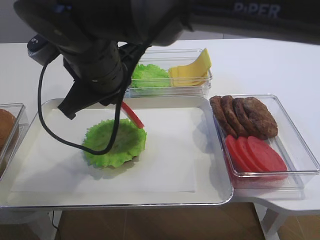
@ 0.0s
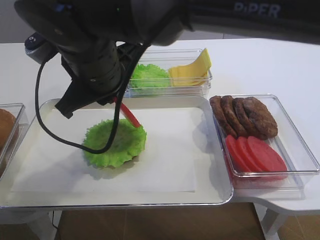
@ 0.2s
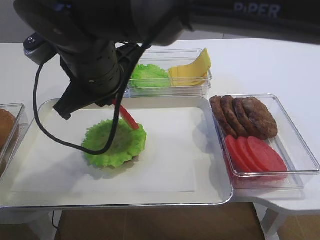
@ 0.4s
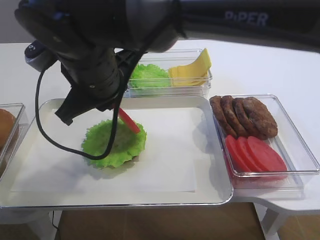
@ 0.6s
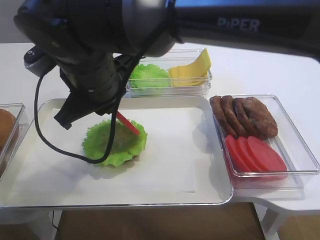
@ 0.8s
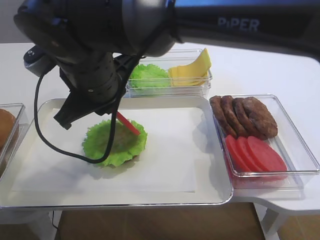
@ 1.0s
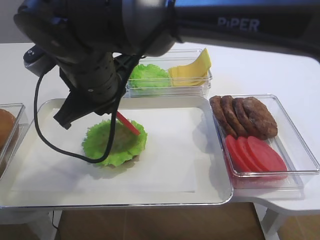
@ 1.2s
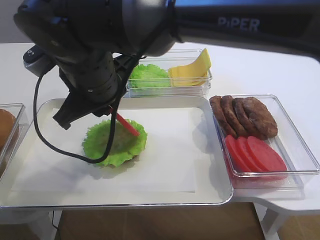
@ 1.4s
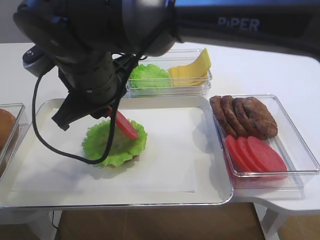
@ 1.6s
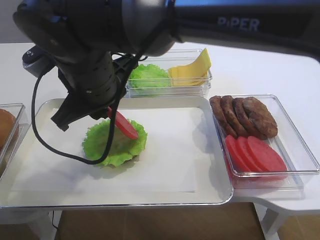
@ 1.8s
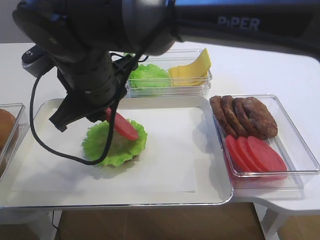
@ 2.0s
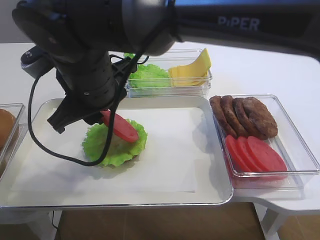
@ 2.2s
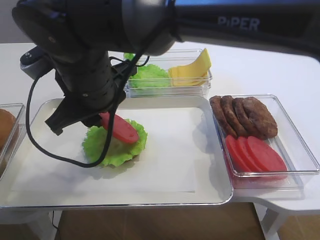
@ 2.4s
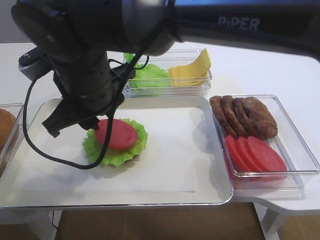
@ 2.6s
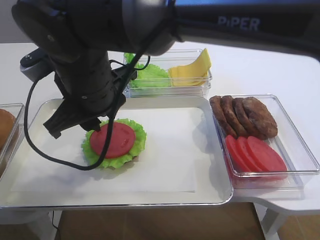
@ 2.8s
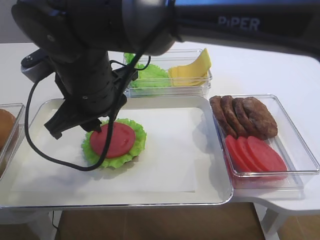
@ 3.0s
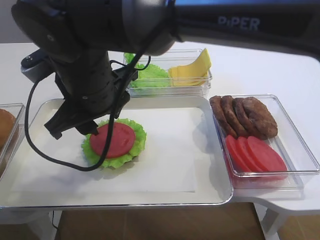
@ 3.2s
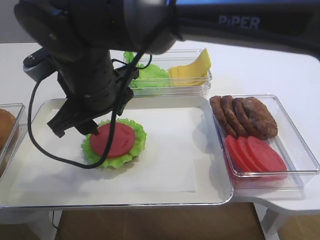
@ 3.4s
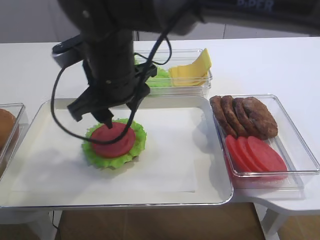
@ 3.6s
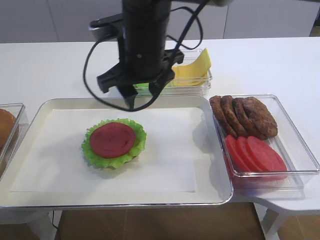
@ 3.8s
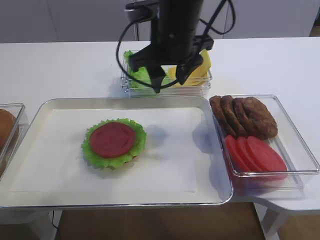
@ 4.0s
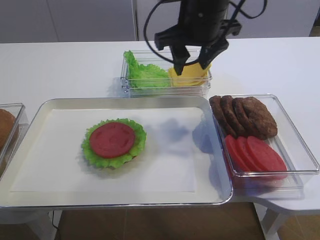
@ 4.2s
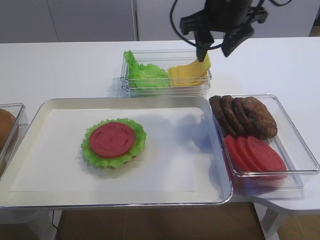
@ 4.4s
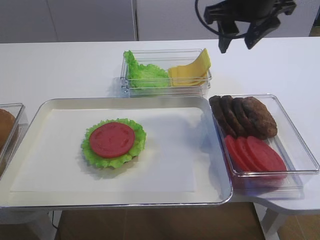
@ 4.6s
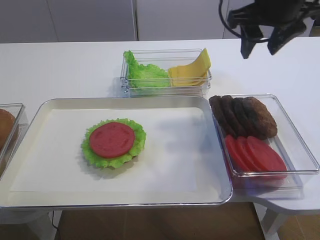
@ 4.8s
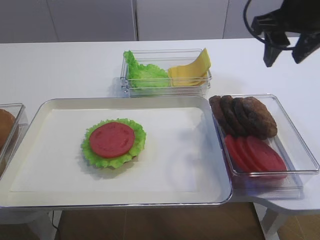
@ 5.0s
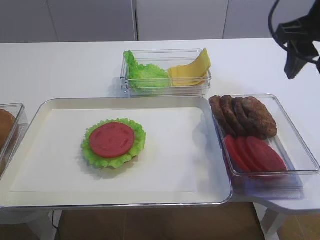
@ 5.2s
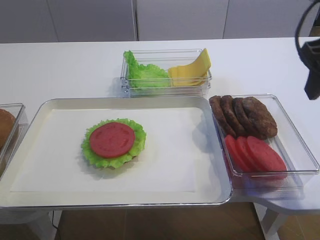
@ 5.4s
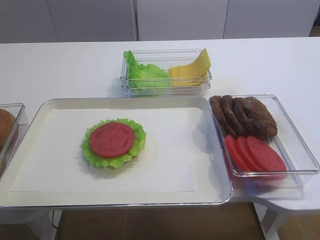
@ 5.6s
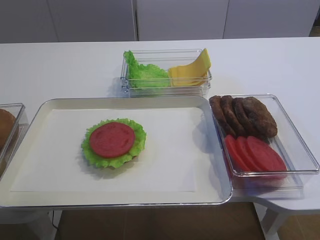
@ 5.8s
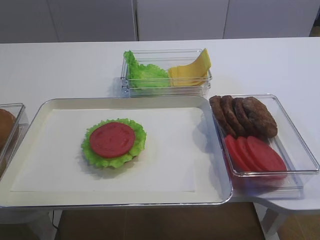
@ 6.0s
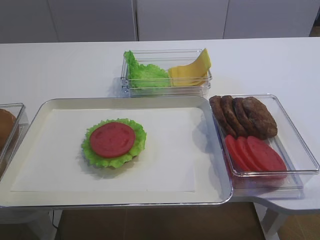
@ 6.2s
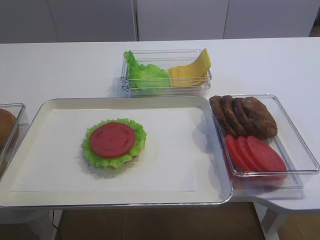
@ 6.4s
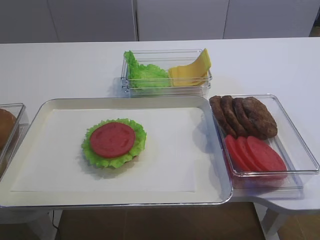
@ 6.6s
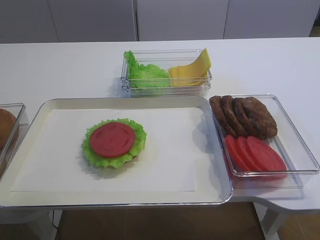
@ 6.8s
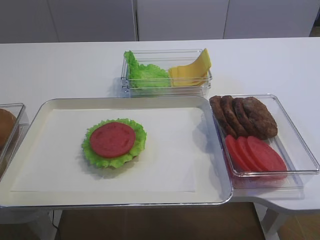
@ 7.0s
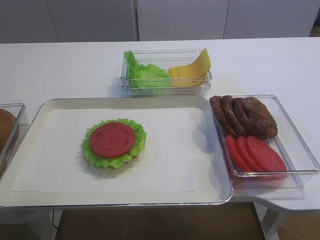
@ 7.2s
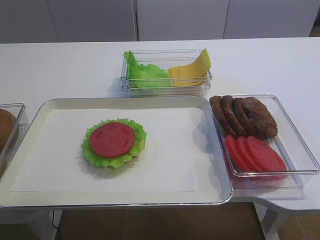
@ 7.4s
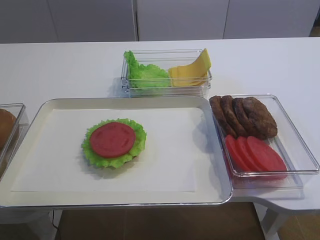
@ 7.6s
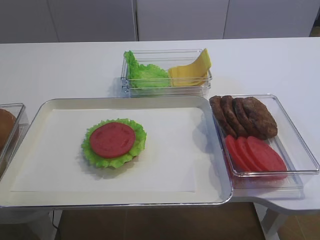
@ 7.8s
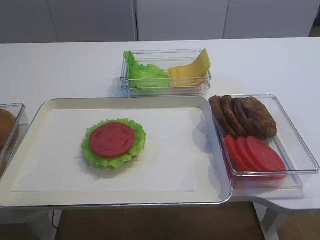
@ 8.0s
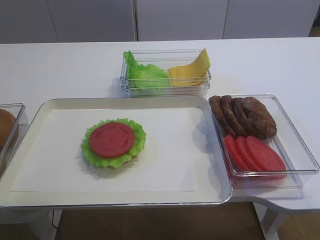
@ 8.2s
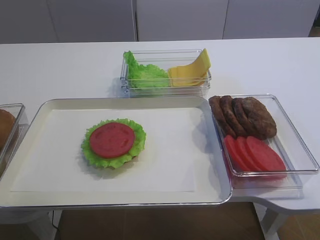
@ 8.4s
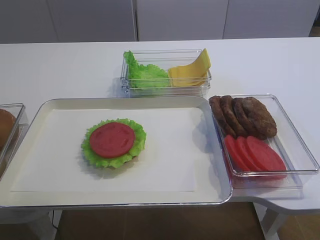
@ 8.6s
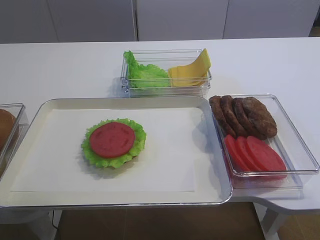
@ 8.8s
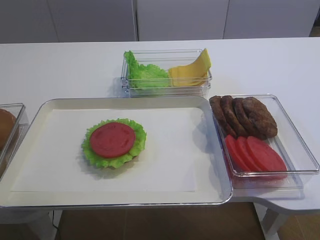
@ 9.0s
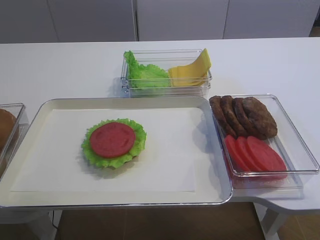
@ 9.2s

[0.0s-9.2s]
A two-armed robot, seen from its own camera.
Step, 0.0s to 3.6s: Place the tomato slice on the lettuce leaf with the right gripper.
0.0s to 3.0s: The grippers make only small movements.
3.0s to 4.6s: The right gripper goes roughly 25 cm to the right and forward, and opens.
4.6s to 6.2s: The right gripper goes some 30 cm backward.

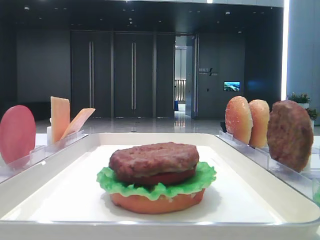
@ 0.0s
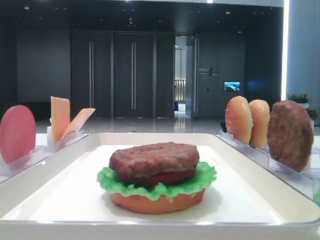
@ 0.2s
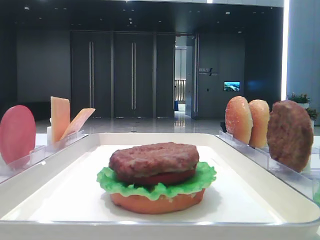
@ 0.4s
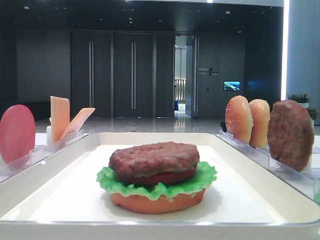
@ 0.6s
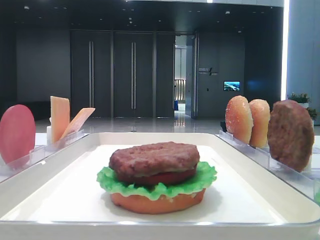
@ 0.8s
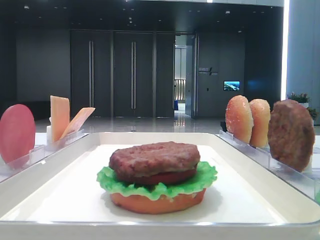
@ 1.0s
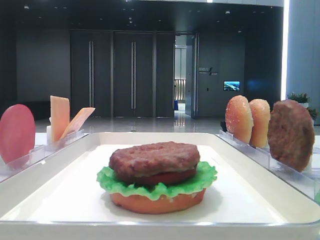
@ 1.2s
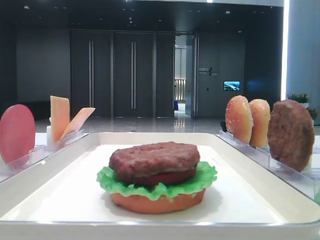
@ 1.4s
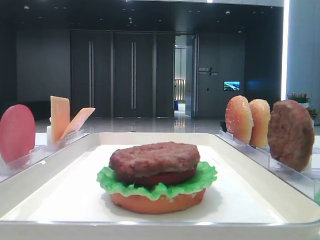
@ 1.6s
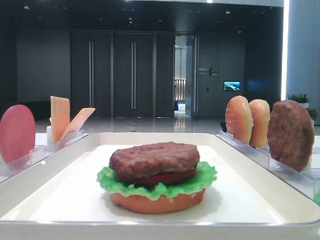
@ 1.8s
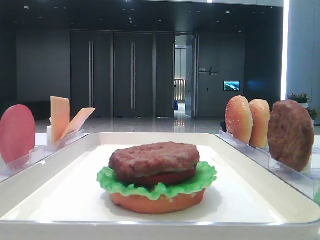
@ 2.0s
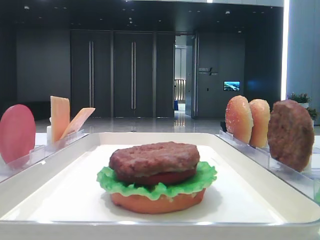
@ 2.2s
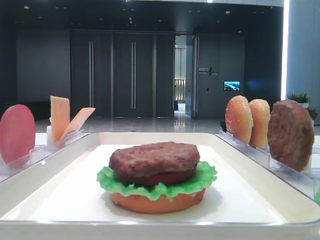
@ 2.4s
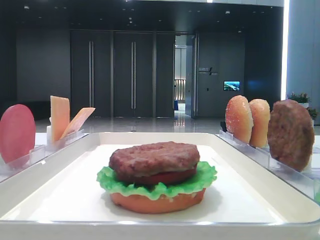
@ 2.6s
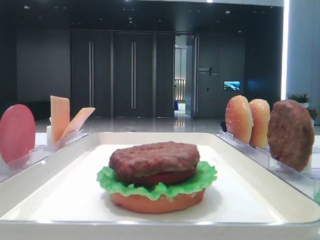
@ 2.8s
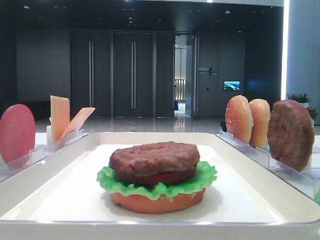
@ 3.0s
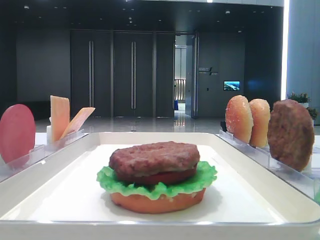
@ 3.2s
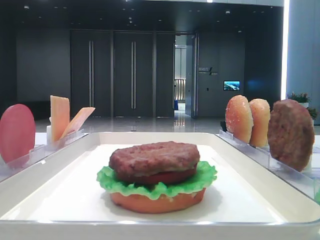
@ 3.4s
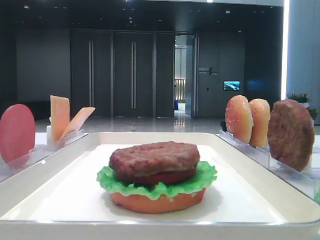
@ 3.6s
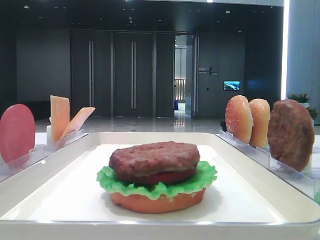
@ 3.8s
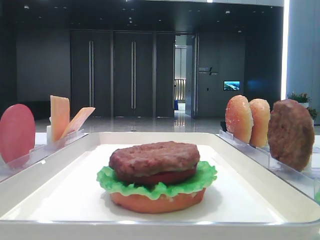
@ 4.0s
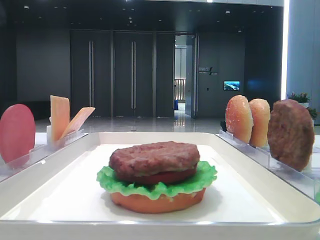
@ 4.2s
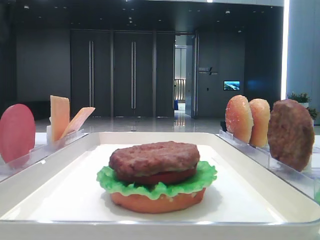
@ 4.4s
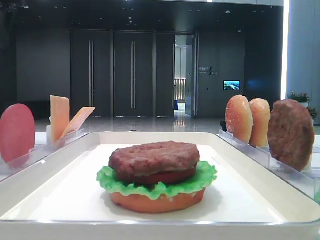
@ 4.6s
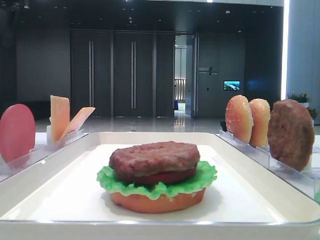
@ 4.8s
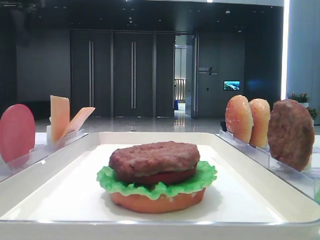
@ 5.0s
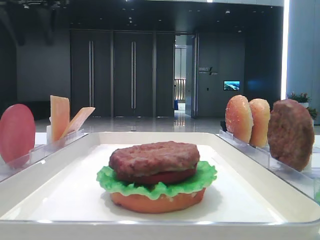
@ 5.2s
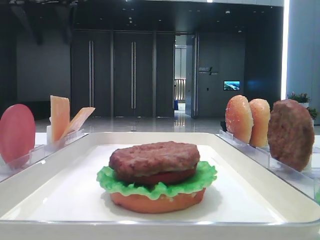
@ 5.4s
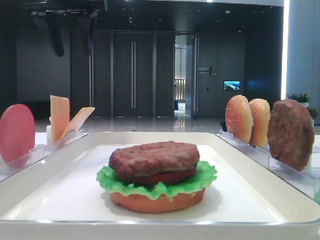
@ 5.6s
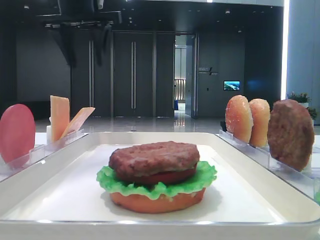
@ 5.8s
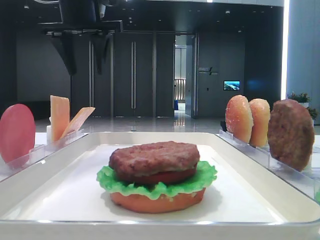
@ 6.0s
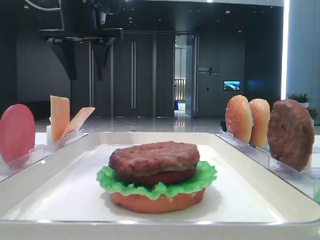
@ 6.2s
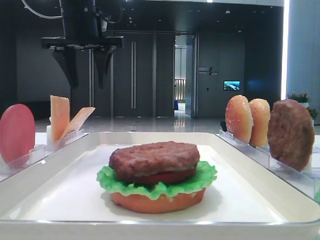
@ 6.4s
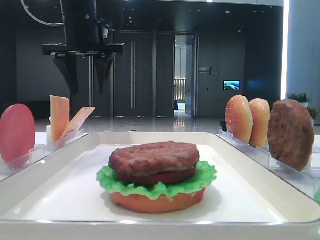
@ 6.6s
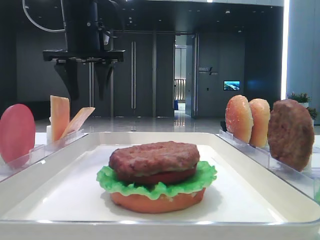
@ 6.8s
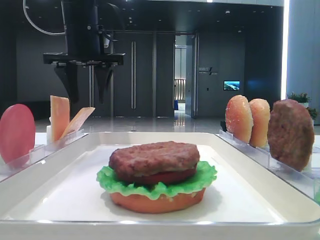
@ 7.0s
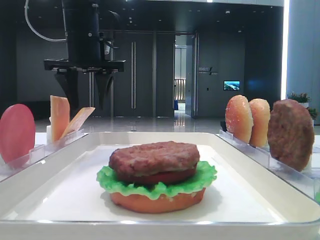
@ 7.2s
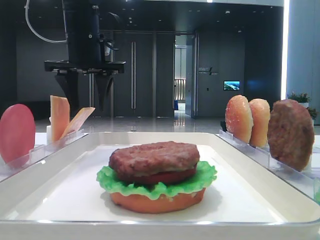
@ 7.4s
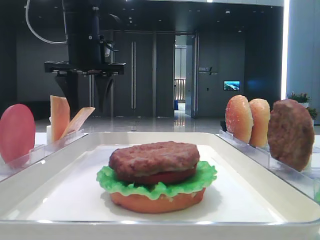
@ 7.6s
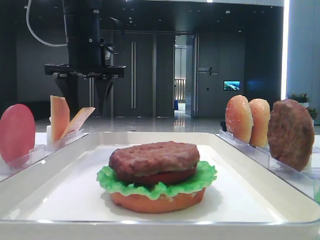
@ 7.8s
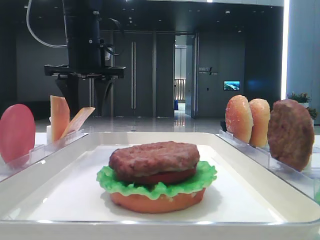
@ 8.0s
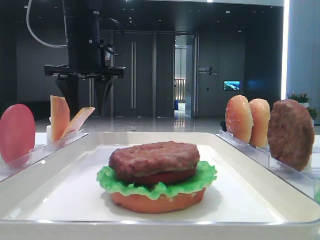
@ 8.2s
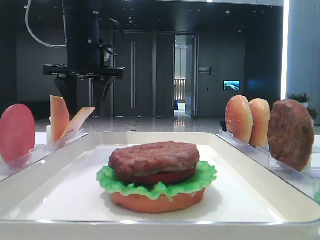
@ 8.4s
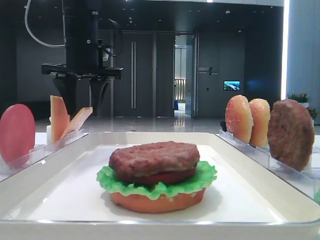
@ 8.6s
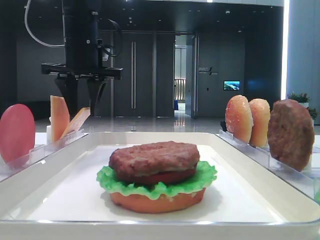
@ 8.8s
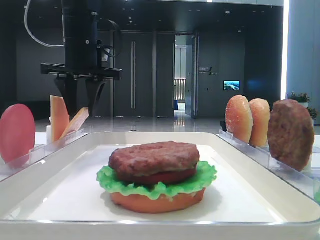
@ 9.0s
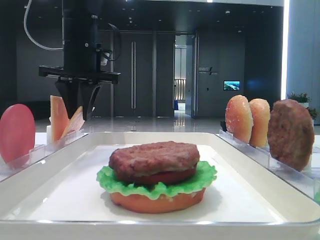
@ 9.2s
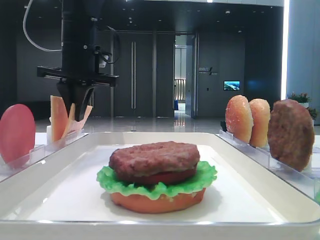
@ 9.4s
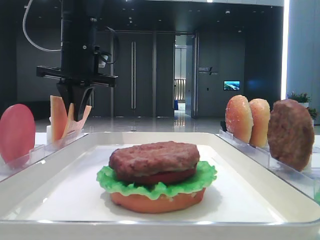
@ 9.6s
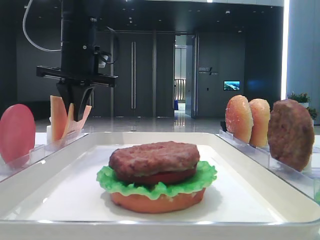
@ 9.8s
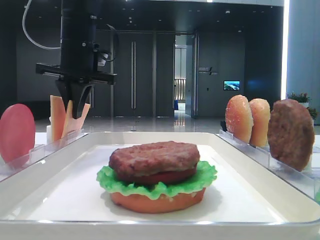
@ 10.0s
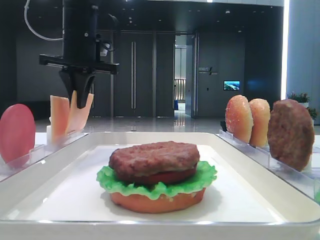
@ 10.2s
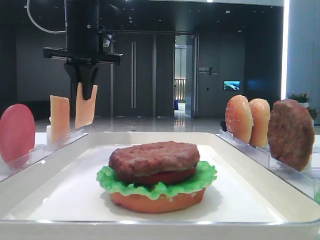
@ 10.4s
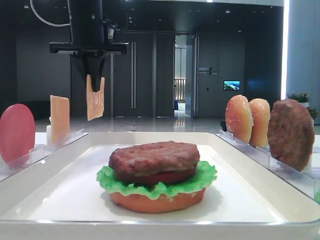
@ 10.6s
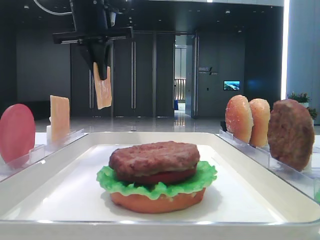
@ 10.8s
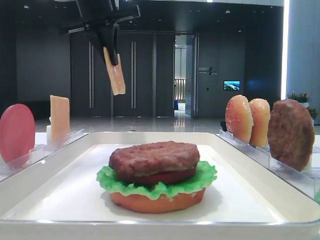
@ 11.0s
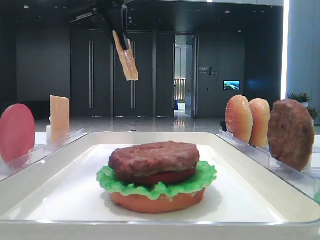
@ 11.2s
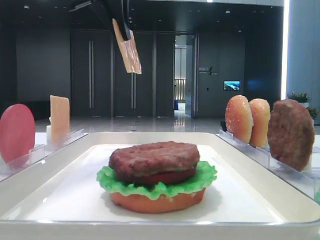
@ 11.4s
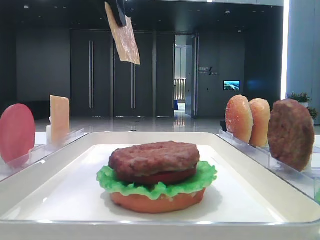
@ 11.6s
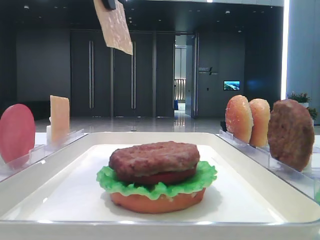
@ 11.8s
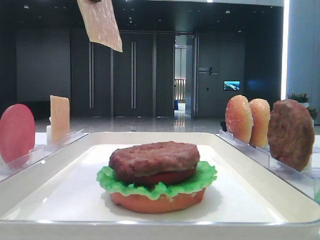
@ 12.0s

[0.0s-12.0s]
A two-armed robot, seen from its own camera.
Step, 0.0s to 9.4s: Pick up the cheese slice with the left hand.
4.4s to 6.0s: The left gripper goes some 15 cm to the right.
6.0s to 7.6s: The left gripper goes roughly 5 cm downward.
7.6s to 9.0s: Neither gripper changes place.
9.0s to 10.4s: The left gripper closes up.
10.4s to 12.0s: The left gripper travels backward and upward by about 20 cm.

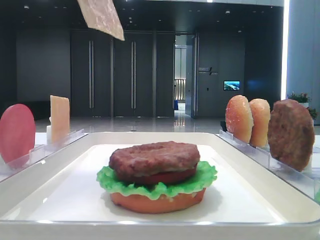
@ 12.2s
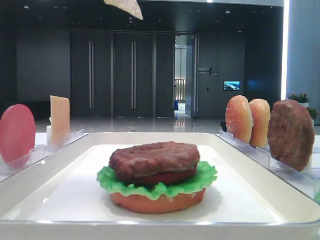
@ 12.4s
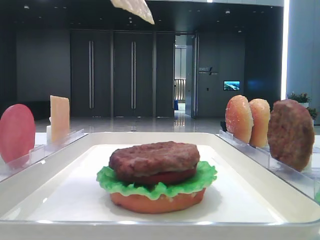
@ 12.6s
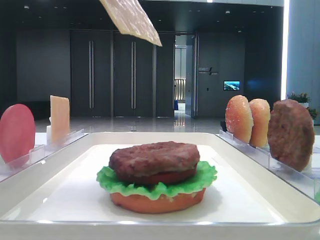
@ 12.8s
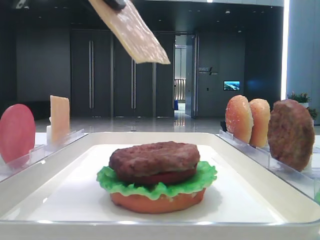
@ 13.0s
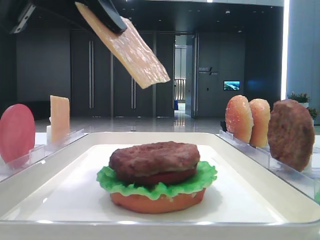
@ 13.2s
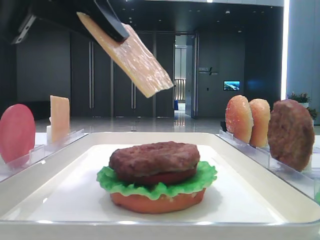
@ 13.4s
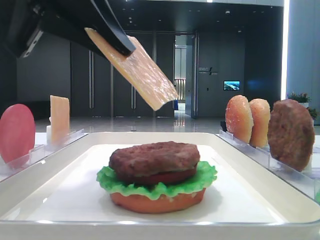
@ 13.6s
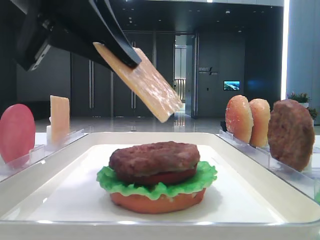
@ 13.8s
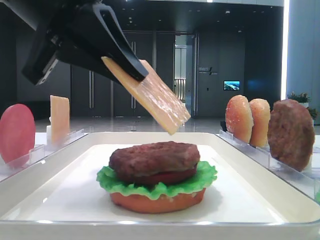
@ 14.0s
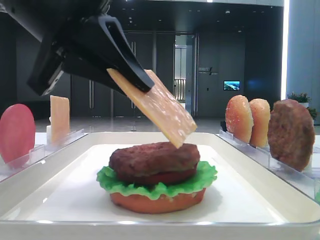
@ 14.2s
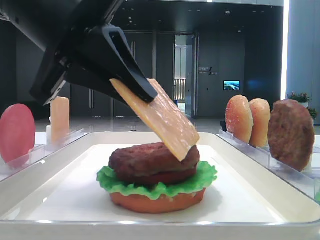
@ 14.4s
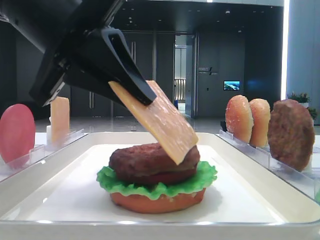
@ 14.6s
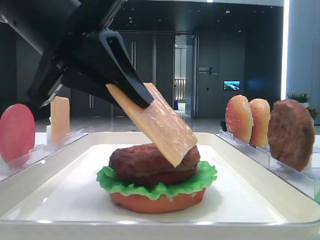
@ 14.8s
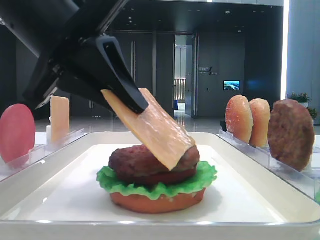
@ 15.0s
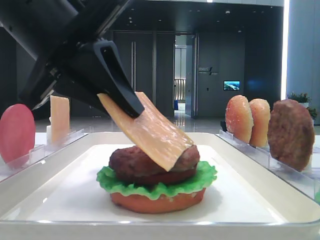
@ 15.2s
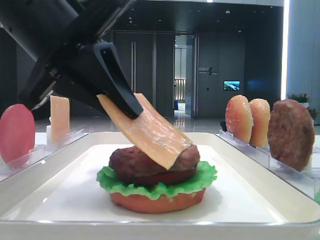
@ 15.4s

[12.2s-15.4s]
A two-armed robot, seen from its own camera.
12.2s to 13.8s: The left gripper moves downward, about 15 cm.
13.8s to 15.4s: The grippers stay close to where they were, moving slightly.
